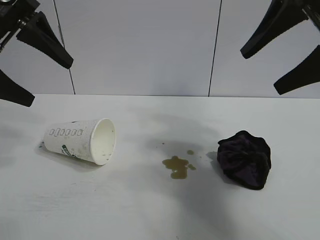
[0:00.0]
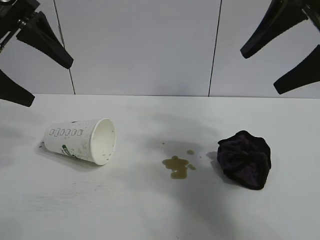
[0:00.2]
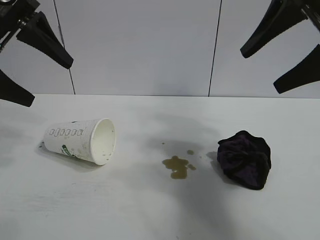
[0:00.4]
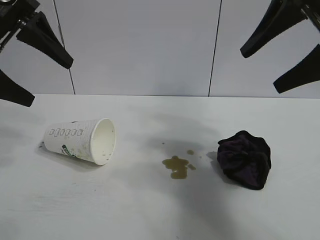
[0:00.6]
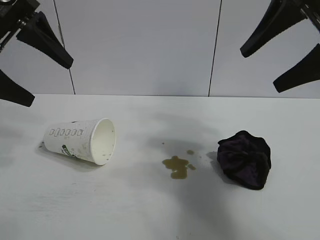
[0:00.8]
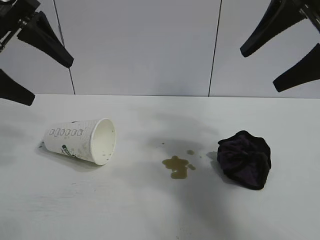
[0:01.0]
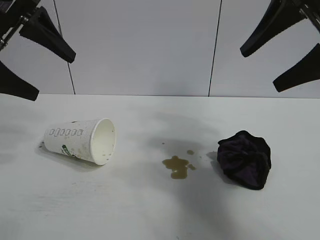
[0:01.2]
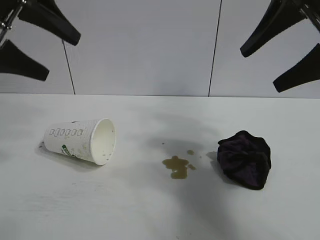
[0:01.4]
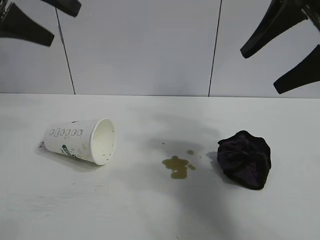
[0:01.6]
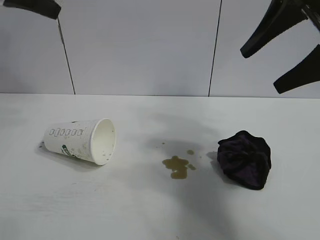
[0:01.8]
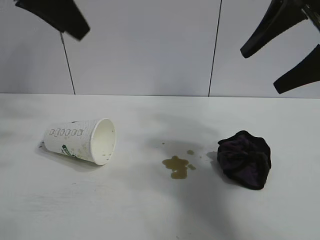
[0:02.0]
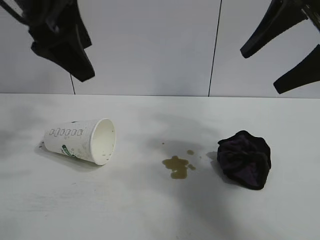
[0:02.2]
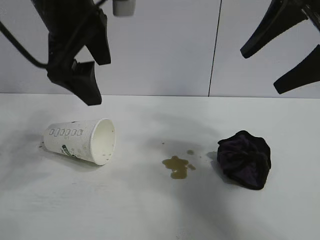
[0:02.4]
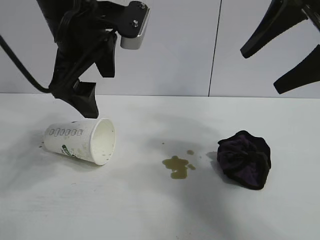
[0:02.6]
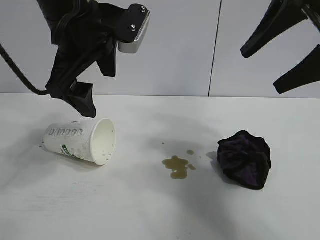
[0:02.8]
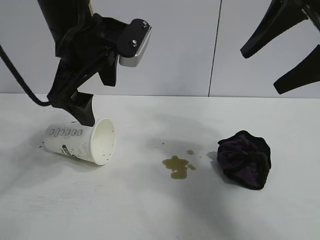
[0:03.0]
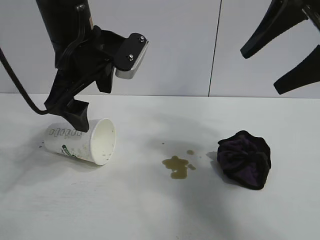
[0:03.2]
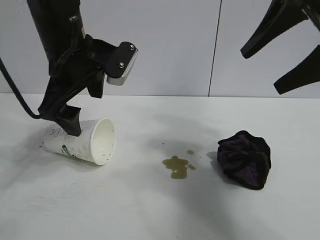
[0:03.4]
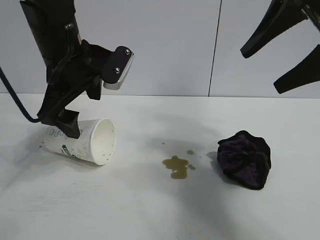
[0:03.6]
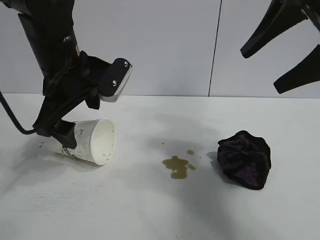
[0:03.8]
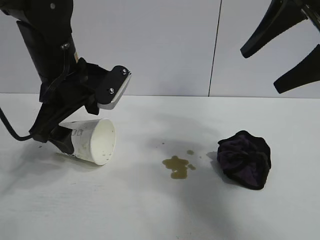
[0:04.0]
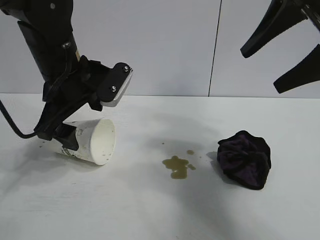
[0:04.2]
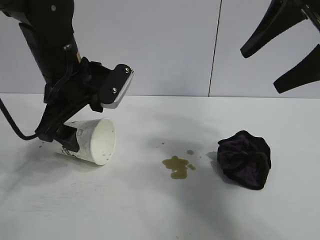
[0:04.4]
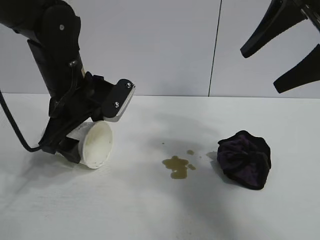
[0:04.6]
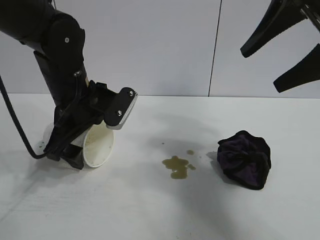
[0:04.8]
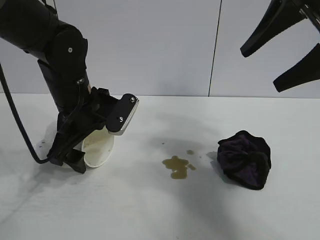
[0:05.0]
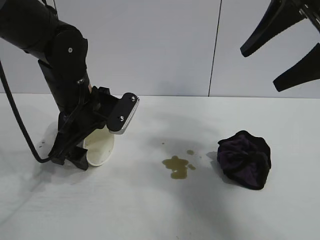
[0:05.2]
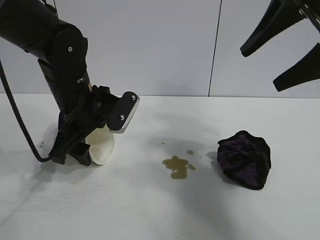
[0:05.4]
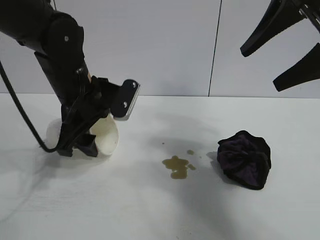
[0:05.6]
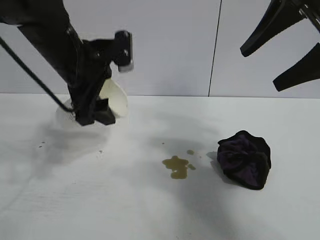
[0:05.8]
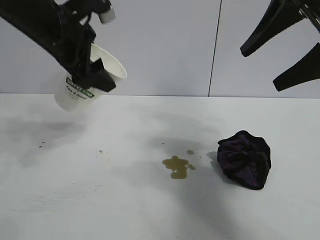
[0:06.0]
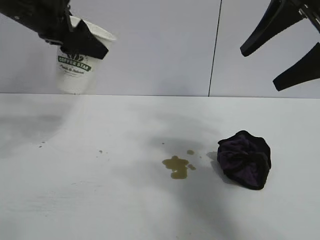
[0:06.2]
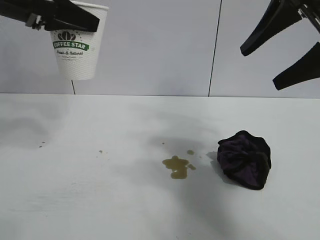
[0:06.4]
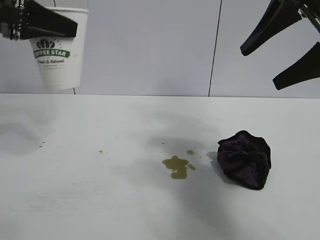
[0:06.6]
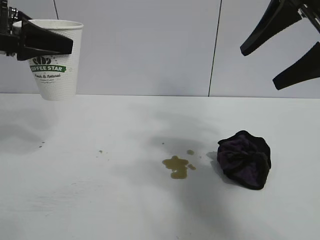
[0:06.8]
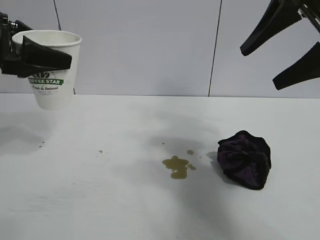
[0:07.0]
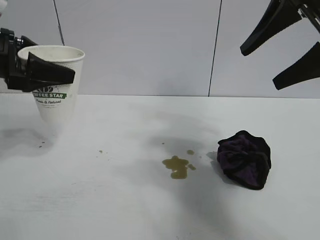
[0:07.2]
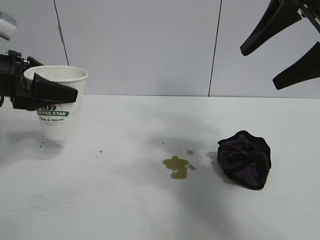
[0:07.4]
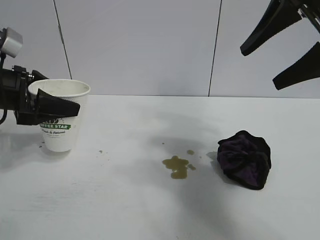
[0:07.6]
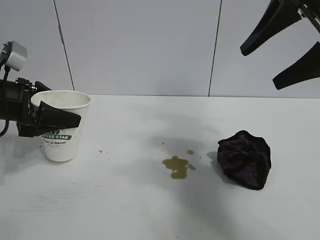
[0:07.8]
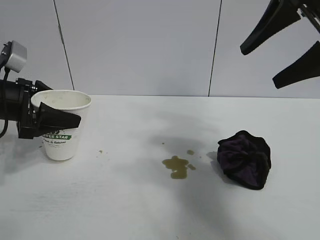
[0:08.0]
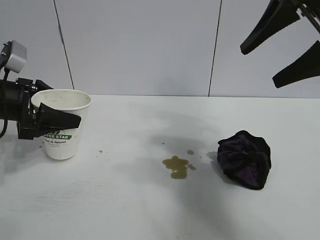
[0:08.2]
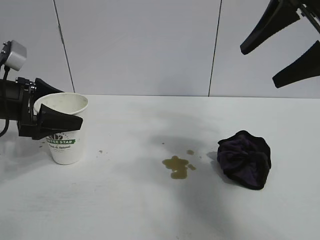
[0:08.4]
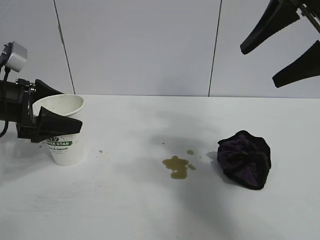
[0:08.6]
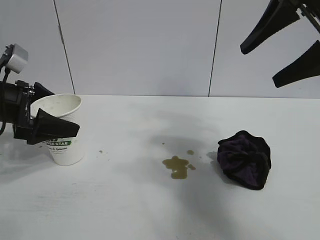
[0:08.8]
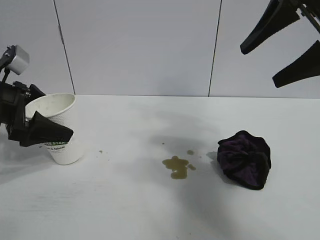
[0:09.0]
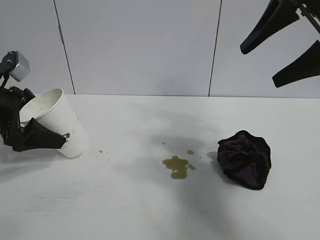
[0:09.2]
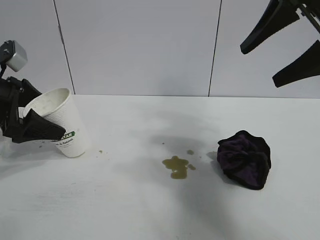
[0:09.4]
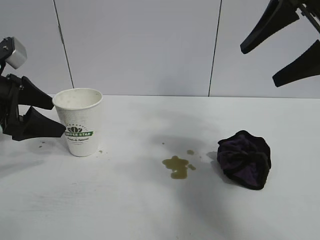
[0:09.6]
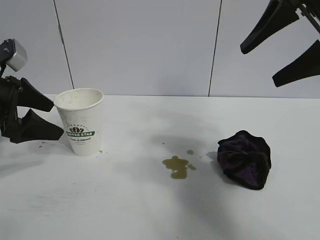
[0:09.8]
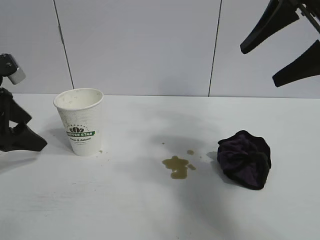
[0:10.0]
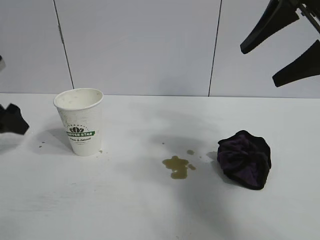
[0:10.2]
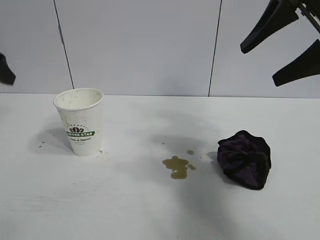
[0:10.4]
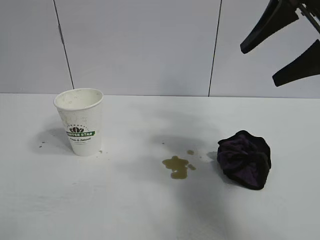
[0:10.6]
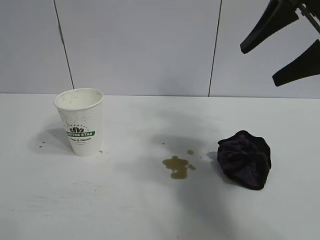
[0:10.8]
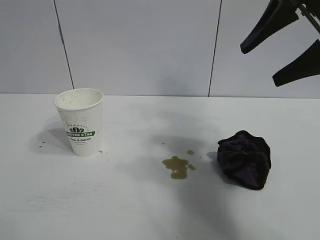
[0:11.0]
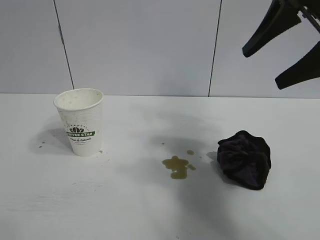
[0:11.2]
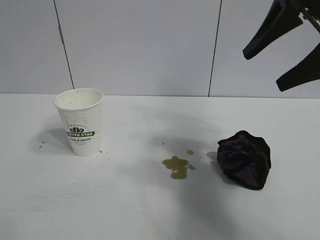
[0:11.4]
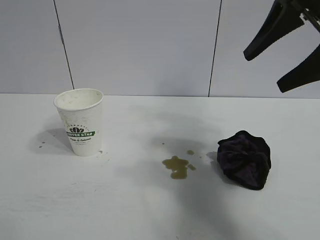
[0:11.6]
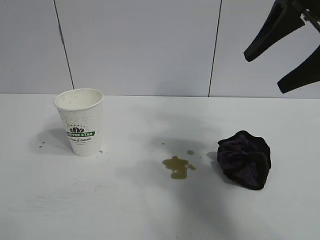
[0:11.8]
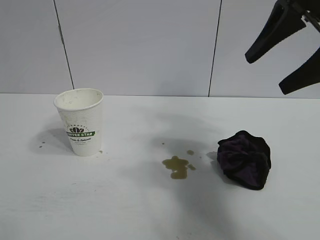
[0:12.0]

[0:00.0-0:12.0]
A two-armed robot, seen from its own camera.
Task of the whole recording: the left gripper pick up the fallen cup and place it upright, the right gripper grasp the black rag and wipe the stain on the table, the right gripper put the black rag back in its original position.
Step, 0:01.0 to 0:05.4: Grasp the paper cup with left gripper.
Step, 0:05.6 to 0:09.6: Stand the paper cup upright with left gripper.

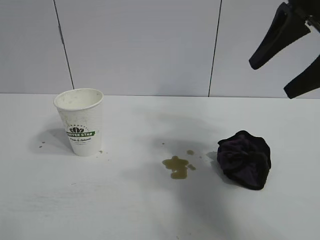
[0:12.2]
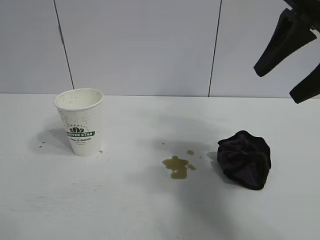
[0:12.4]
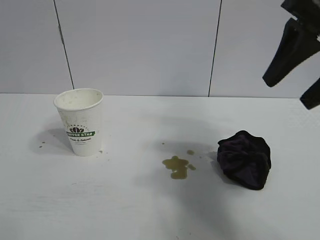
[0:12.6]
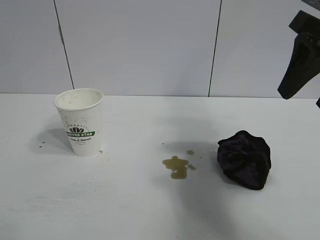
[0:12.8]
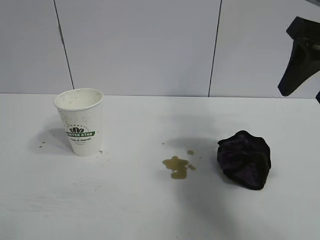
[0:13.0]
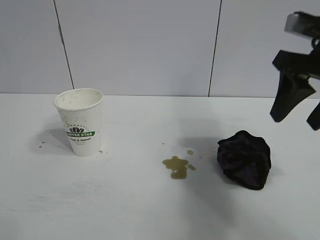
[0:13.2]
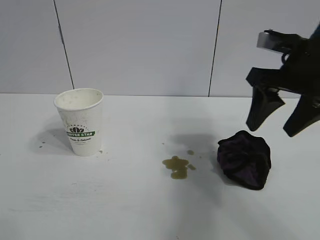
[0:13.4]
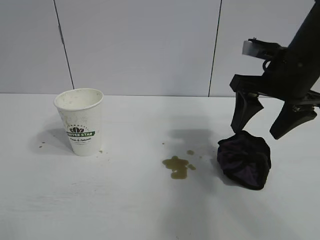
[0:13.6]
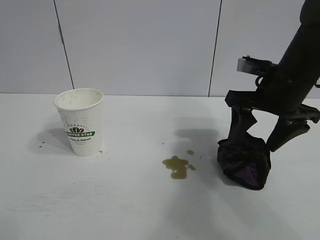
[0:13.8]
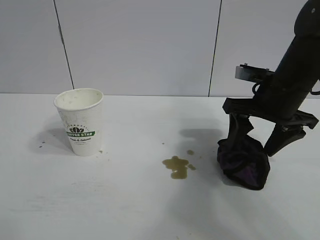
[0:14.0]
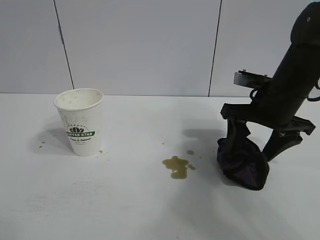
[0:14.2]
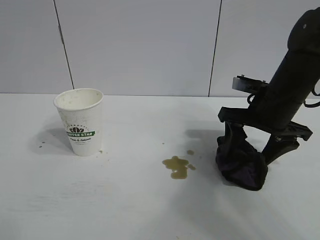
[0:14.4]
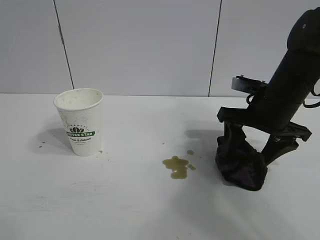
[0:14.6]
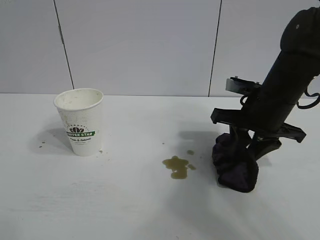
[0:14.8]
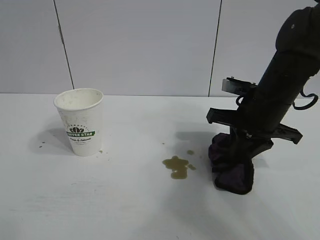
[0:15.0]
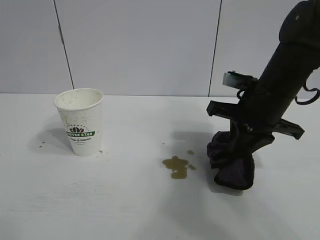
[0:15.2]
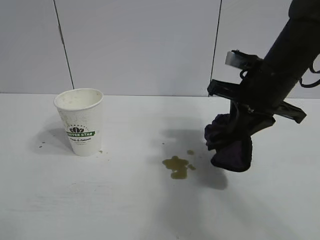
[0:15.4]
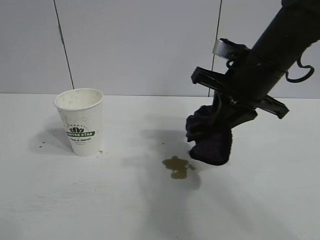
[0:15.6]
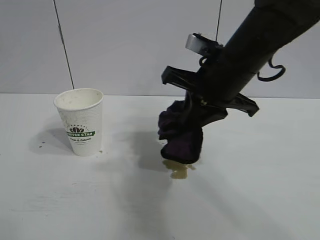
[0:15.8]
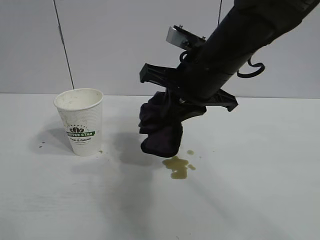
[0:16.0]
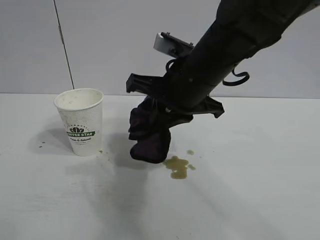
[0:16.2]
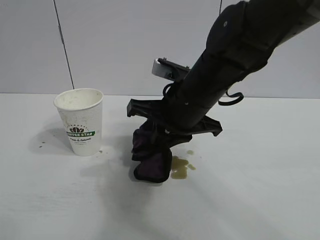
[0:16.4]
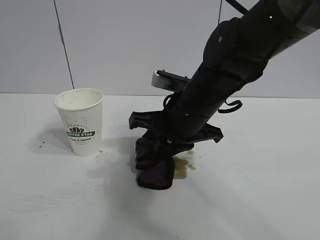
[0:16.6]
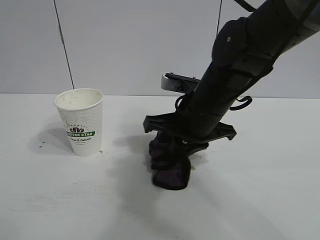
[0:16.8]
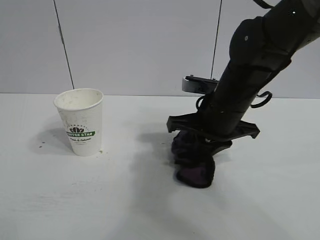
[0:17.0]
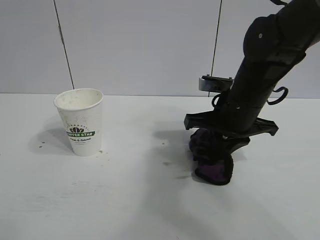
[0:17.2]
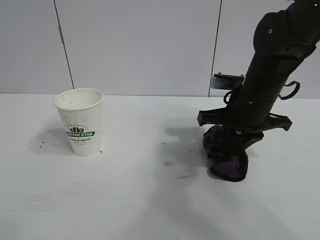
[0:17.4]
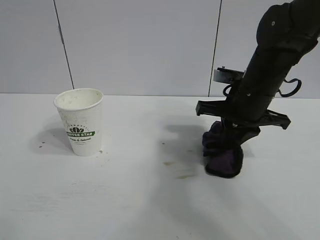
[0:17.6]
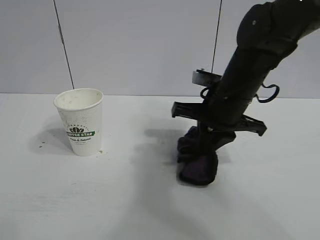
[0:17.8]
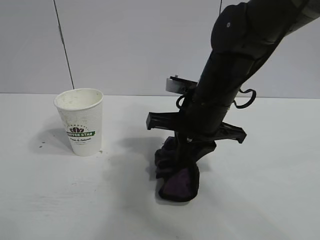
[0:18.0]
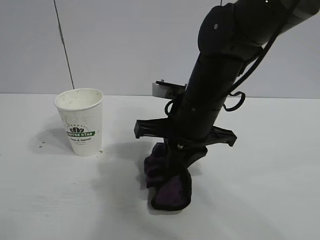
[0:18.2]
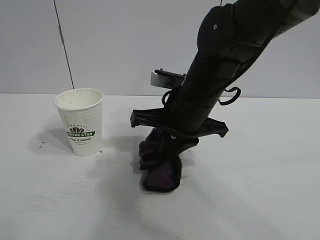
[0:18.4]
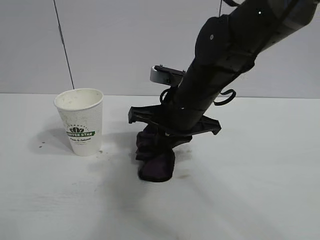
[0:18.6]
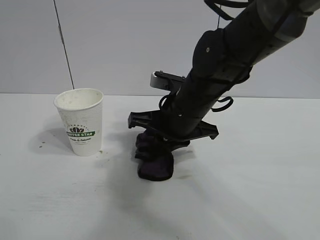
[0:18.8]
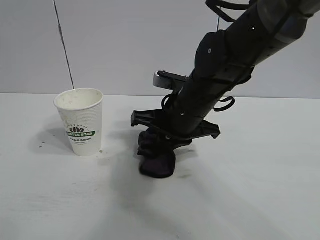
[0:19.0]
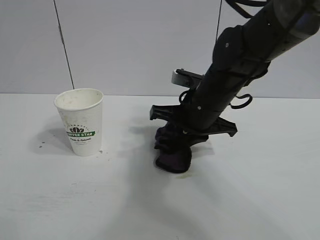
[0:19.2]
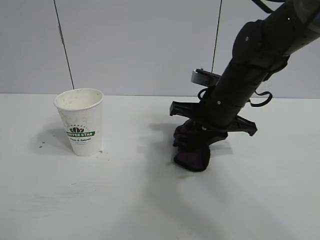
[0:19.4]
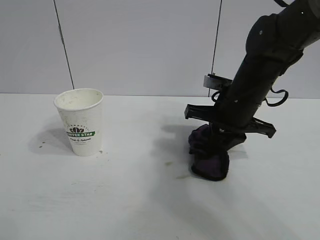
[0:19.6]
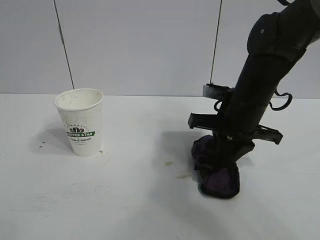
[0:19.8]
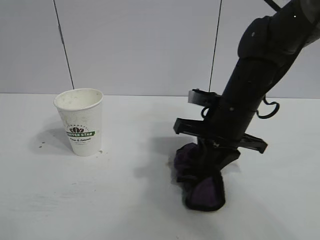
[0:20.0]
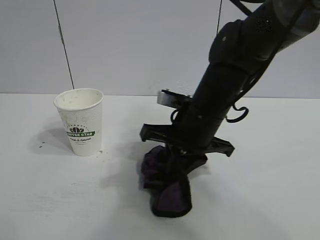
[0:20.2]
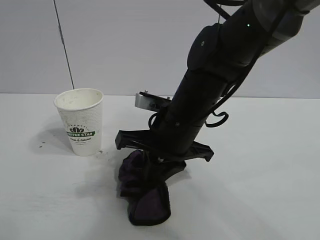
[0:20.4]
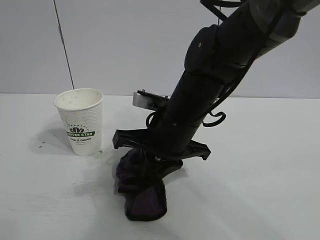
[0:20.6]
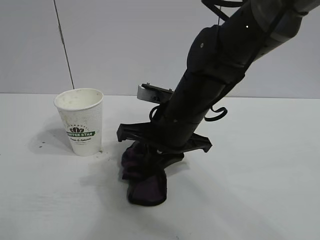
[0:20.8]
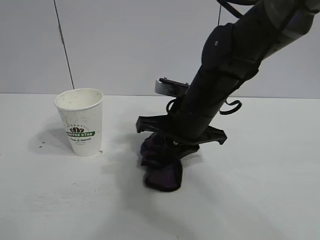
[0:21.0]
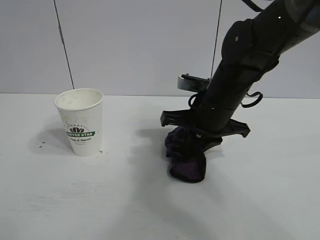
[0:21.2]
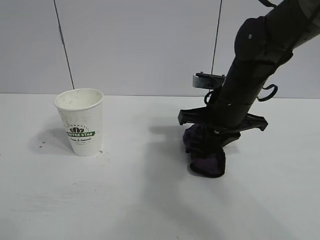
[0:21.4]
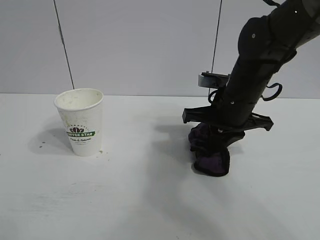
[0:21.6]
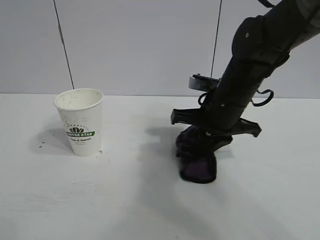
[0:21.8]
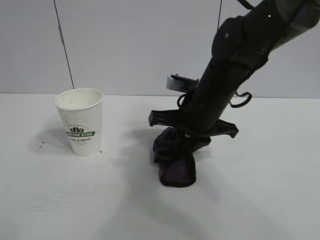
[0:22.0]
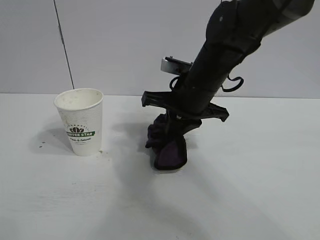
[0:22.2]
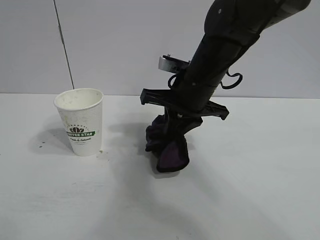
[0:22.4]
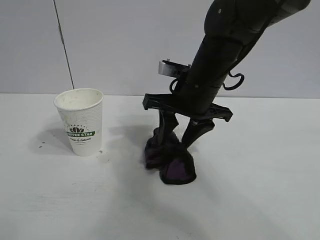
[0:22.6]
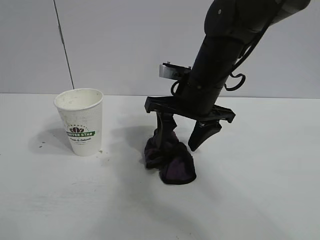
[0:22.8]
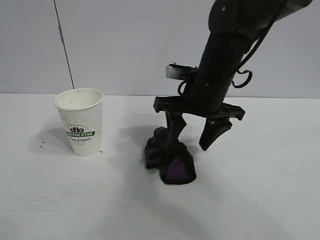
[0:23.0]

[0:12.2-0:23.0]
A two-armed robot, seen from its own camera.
Task of the whole recording: the left gripper pick up the fallen cup and place it upright, the right gripper grasp the black rag and wipe the stain on the table, the right gripper put the black rag back in its original position.
Step, 0:12.2 to 0:14.8: Grasp the rag with right gripper.
Step, 0:15.0 to 0:21.4: Wipe the stains off the table with the rag with right gripper.
Step, 0:21.6 to 0:22.6: Place the rag on the table with right gripper.
